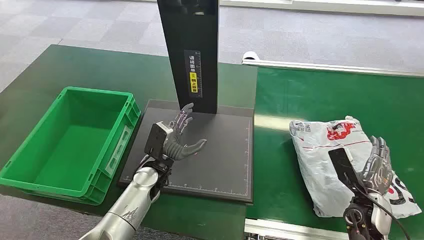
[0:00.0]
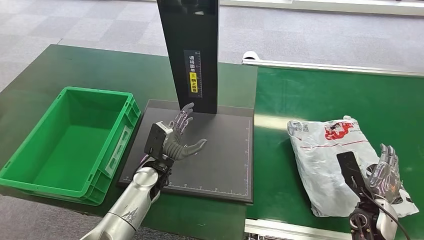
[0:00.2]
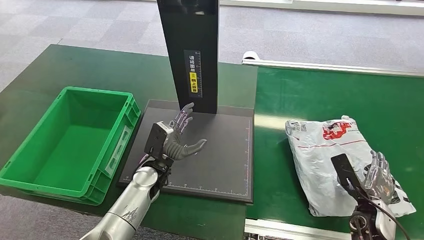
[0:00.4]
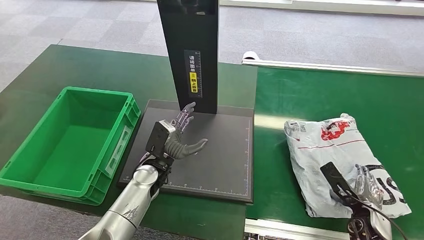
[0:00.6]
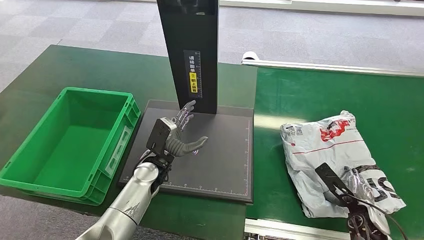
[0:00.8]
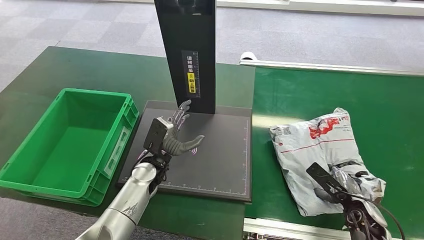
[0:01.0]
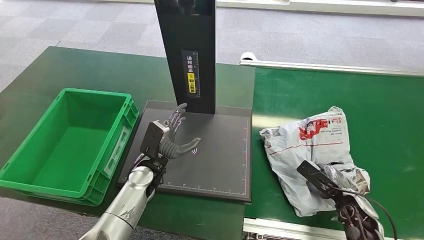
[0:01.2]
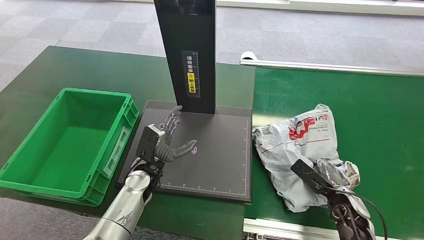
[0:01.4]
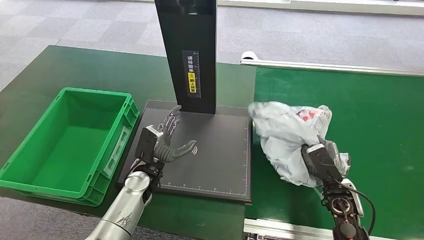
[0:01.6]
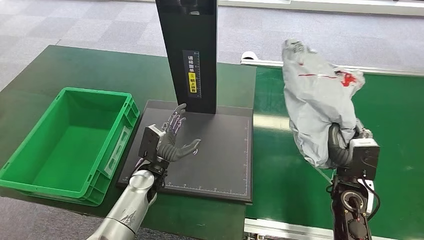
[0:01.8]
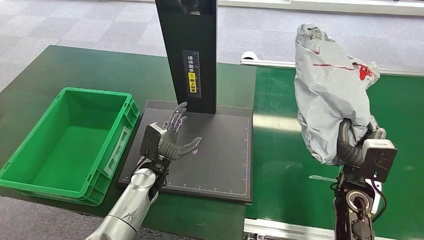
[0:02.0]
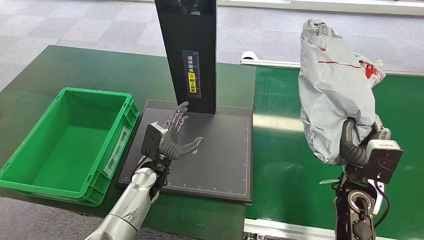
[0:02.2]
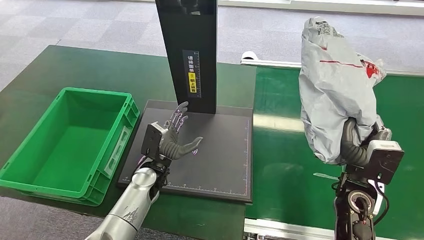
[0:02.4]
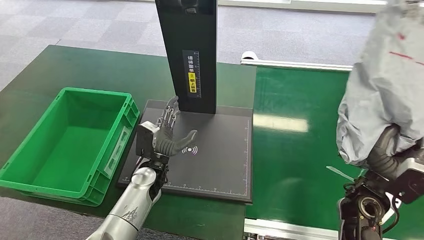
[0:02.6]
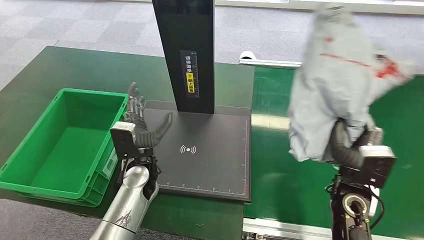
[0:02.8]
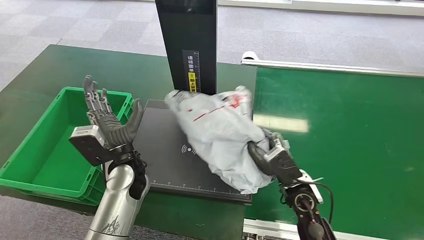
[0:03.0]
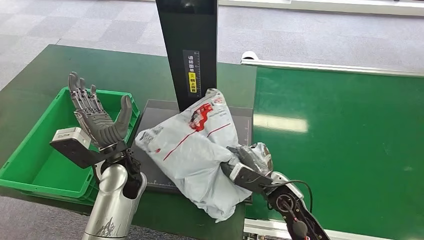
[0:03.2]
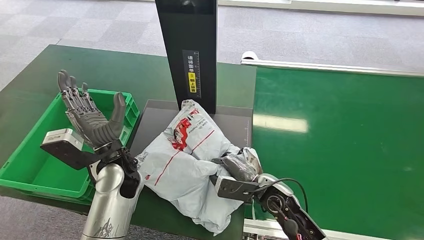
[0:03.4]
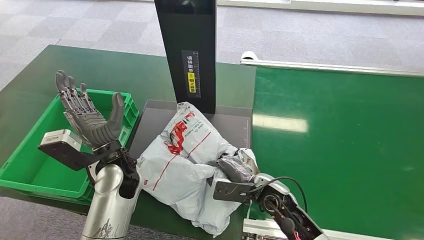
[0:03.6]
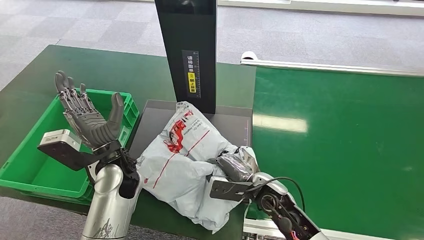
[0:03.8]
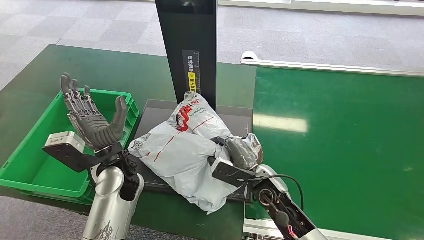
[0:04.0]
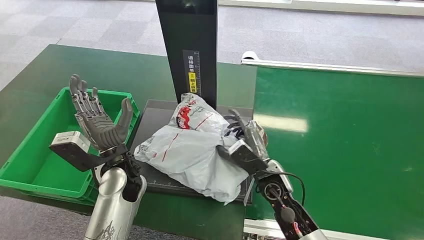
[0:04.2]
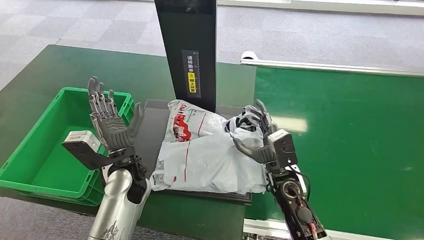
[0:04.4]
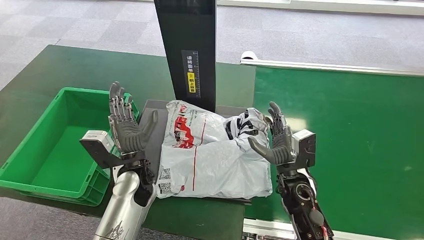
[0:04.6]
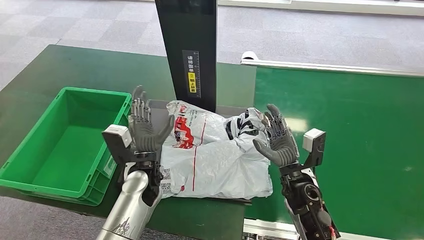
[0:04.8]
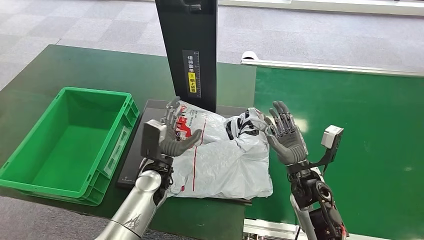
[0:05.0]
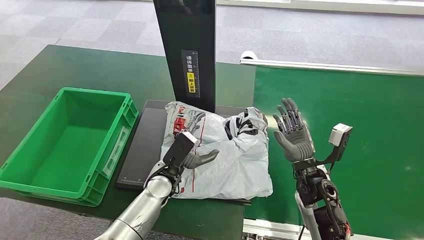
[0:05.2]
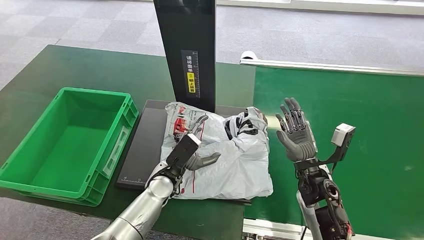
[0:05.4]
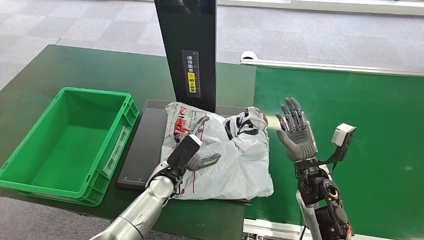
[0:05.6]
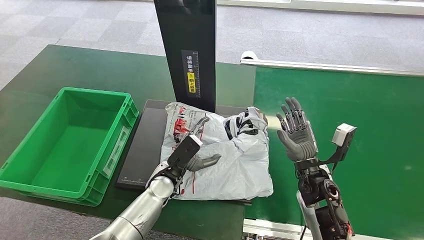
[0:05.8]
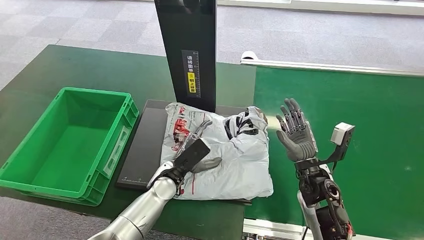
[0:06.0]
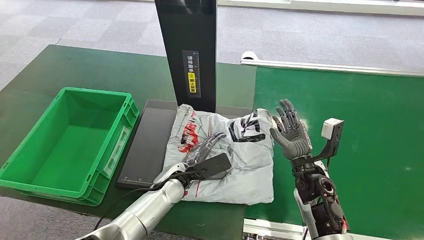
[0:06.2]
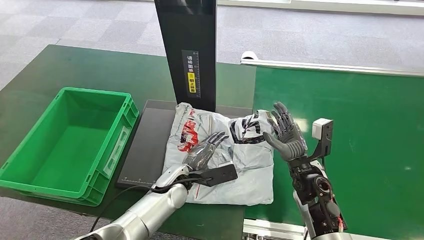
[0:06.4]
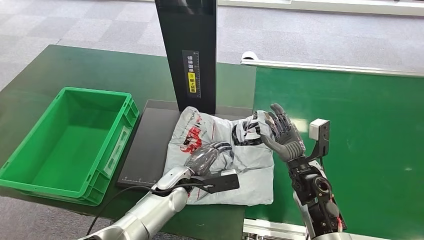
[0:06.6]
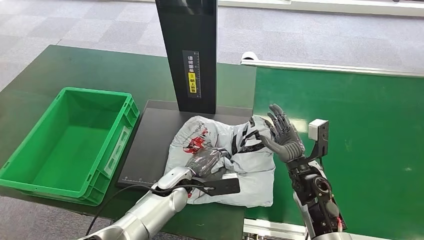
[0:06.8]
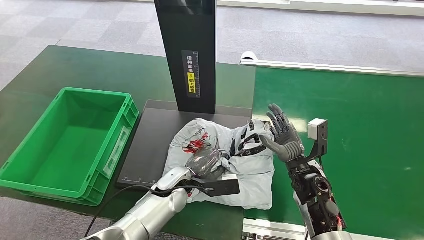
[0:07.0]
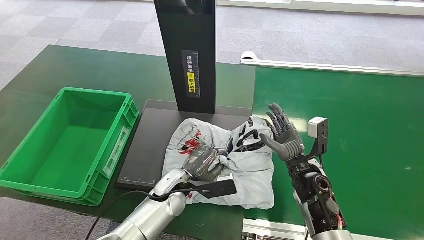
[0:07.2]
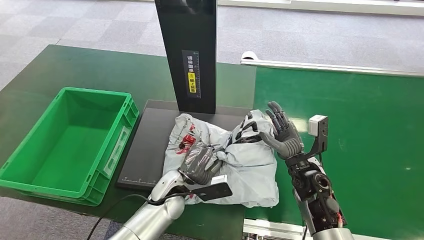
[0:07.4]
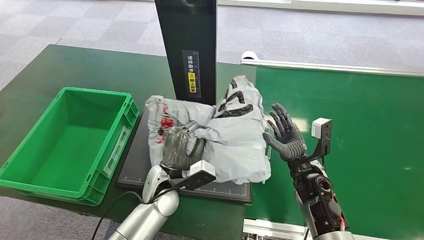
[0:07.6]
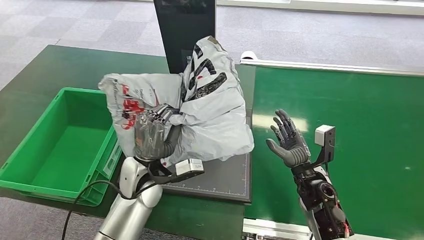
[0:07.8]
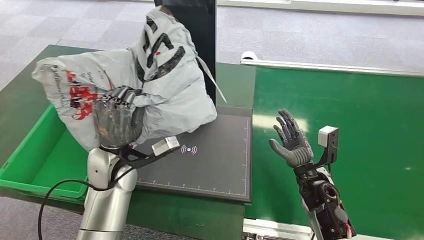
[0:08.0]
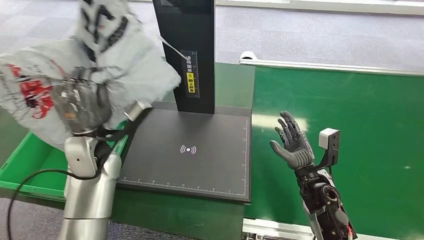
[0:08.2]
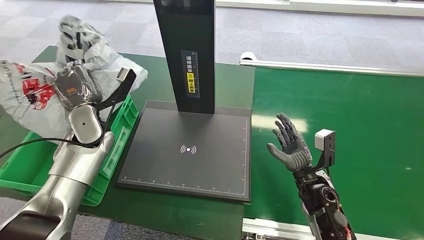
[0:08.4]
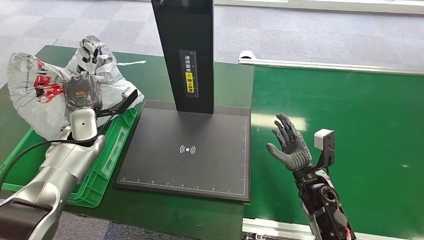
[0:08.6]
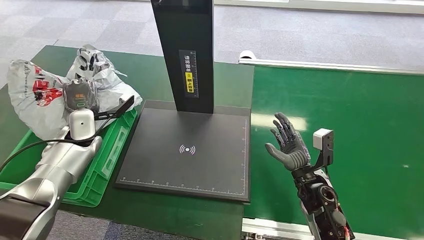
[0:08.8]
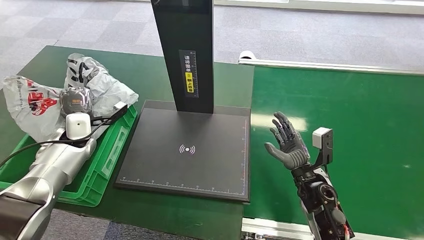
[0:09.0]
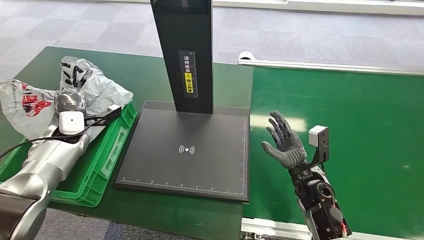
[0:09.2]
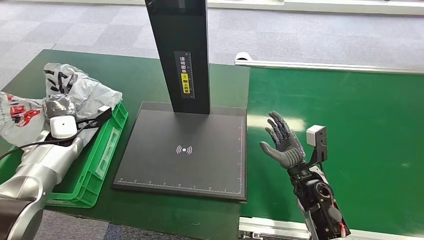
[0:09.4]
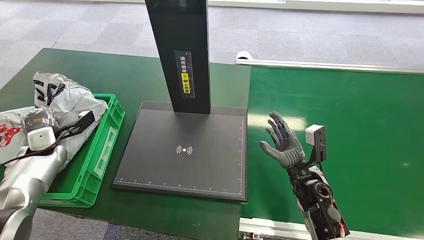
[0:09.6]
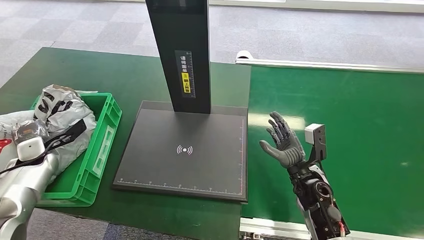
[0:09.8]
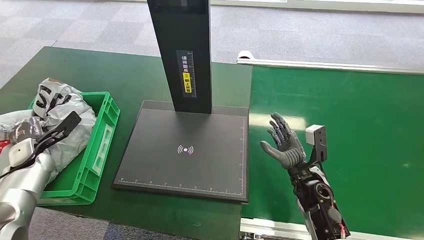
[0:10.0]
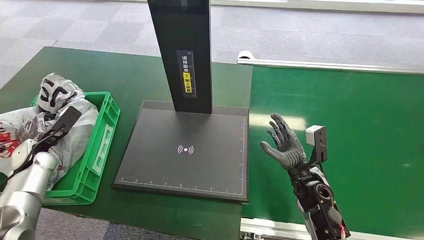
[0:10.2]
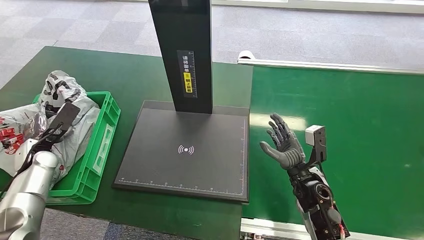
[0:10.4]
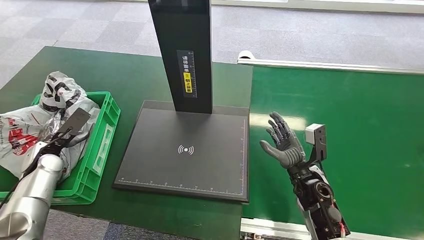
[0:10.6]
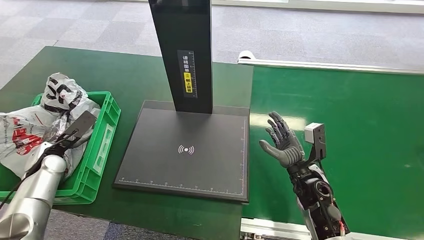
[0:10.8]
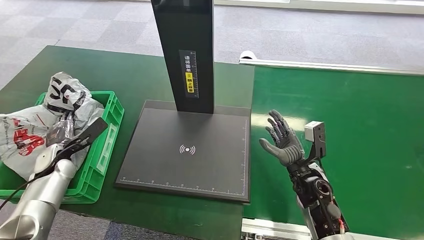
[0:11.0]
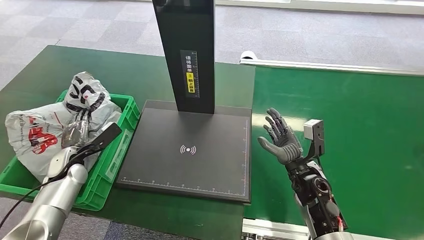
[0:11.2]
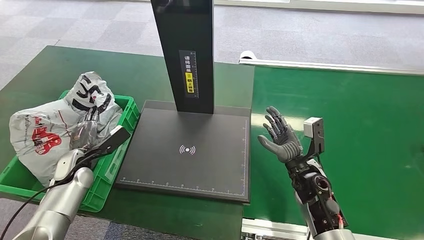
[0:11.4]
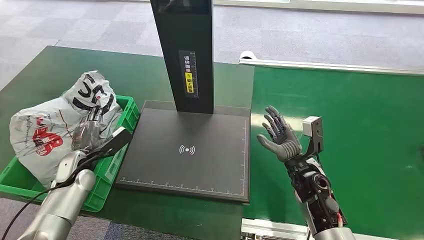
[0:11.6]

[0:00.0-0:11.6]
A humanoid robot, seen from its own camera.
Step, 0:00.0 to 0:01.6: Pick up the package from the conveyor belt.
Step, 0:01.8 to 0:05.0: Place the package onto the inbound machine.
Step, 0:05.2 to 0:08.2: Pick up the package from the inbound machine.
Step, 0:08.6 to 0:11.4: Place the package into the parcel locker.

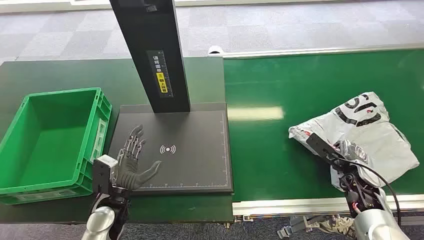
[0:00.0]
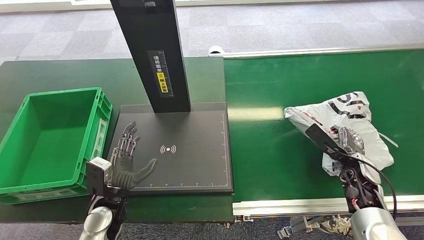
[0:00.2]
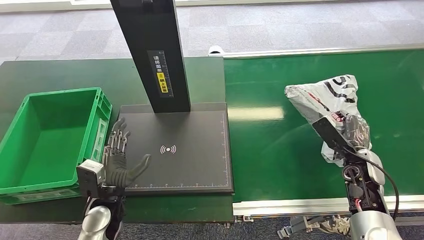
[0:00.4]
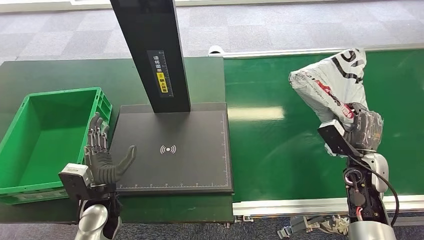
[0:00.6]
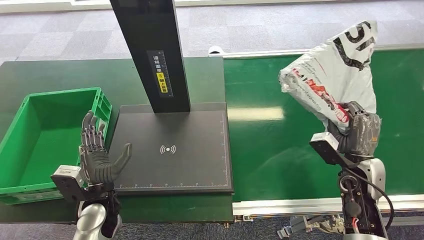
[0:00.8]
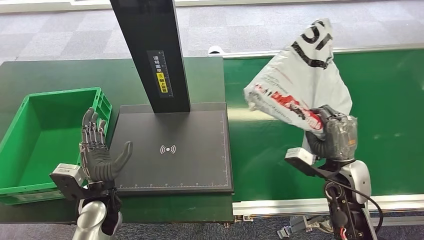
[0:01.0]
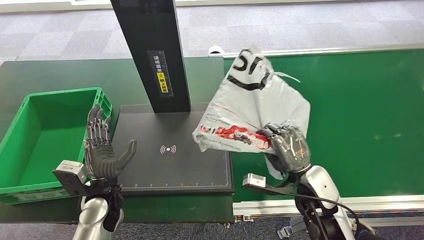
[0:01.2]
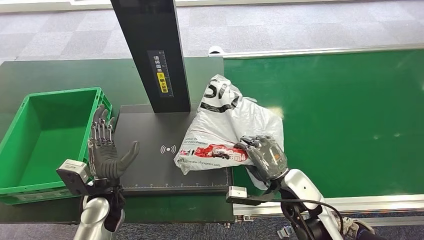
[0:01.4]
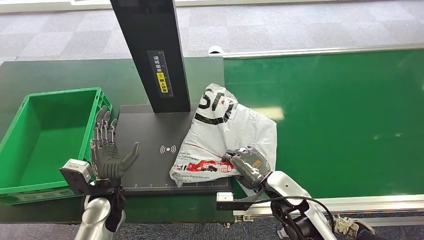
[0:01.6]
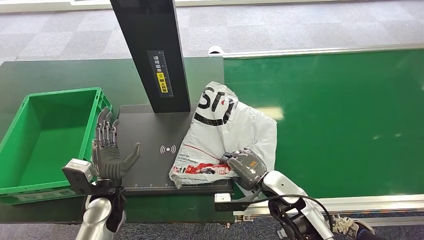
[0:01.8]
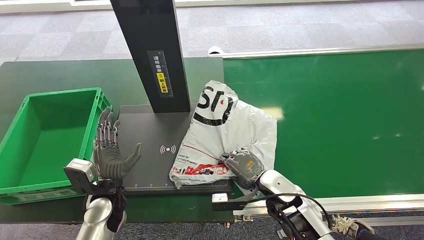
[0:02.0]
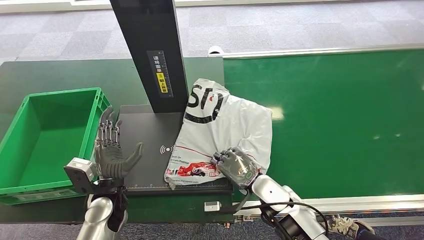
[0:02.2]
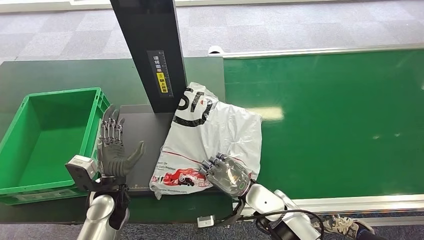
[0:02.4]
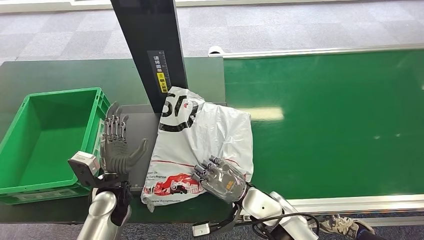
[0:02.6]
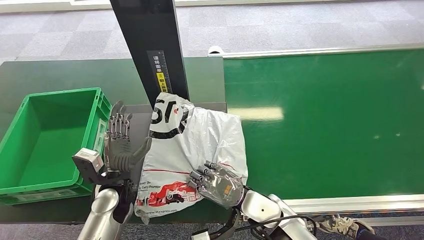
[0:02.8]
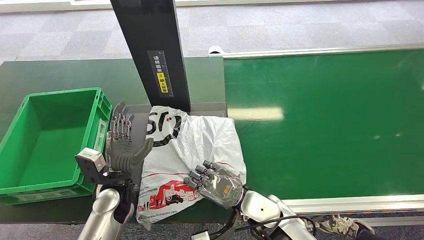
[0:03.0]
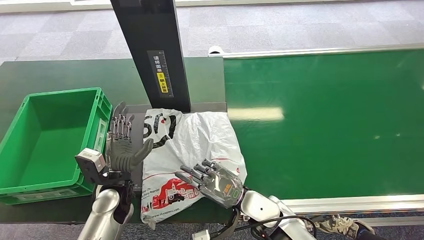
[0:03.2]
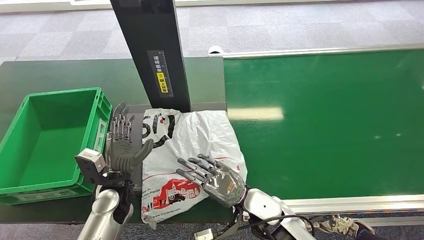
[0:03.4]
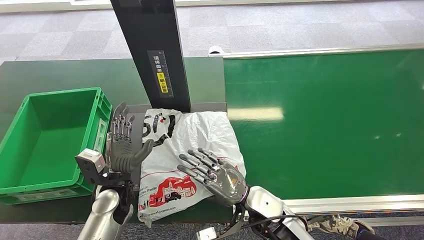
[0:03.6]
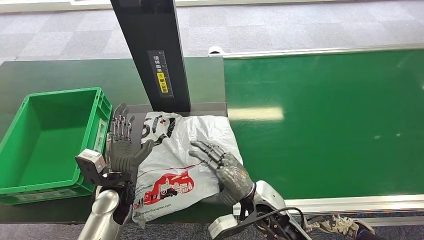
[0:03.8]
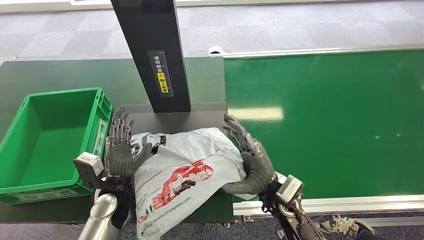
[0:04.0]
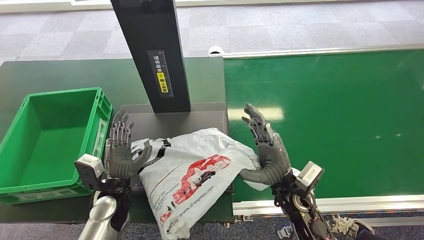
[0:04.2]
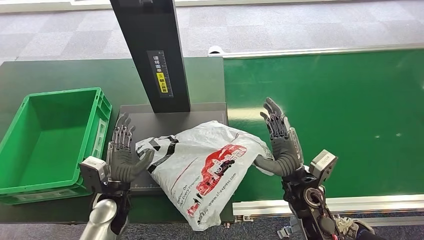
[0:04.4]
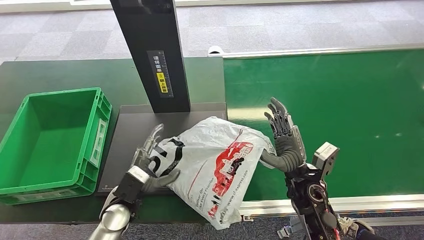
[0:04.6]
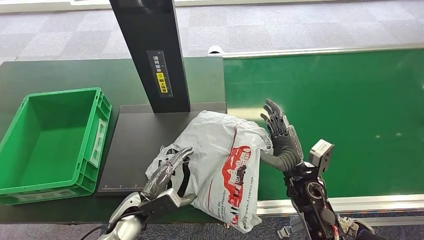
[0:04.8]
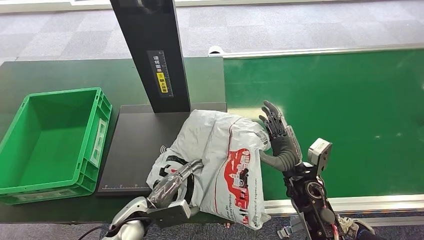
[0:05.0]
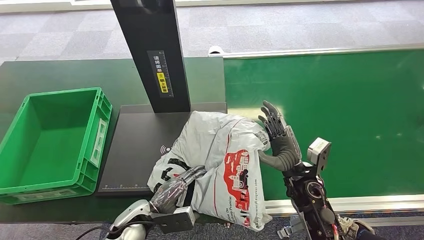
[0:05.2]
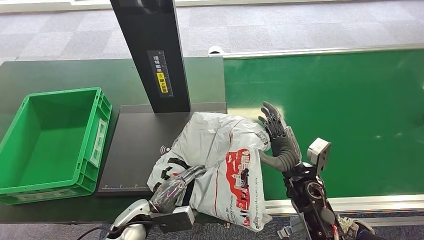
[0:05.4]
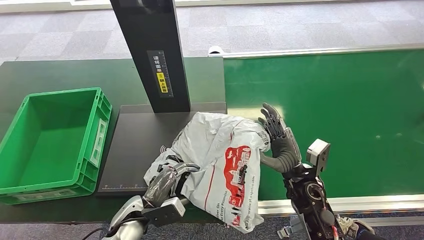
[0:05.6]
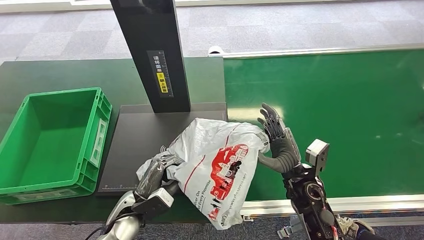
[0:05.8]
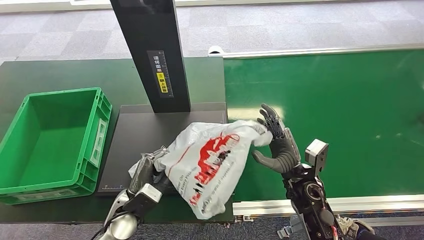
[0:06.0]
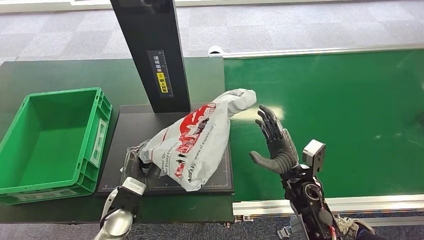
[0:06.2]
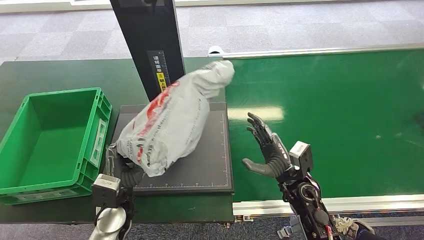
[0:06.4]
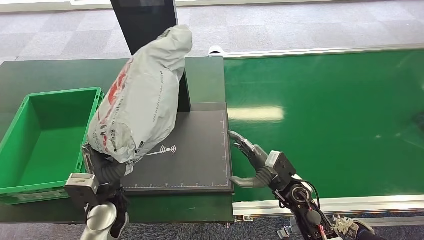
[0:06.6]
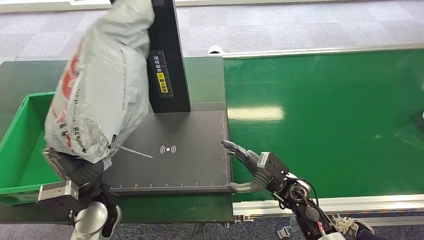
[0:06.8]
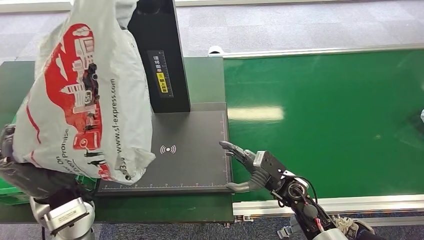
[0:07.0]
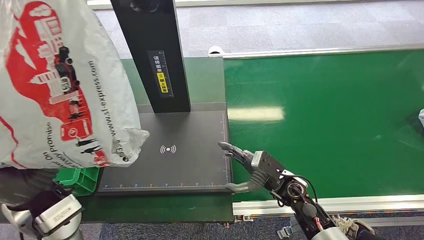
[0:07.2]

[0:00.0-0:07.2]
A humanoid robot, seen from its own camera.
Step, 0:00.0 to 0:01.0: Pick up the package from the conveyor belt.
Step, 0:01.2 to 0:03.6: Place the package onto the inbound machine.
Step, 0:03.8 to 0:07.2: Pick up the package from the inbound machine.
0:02.8 to 0:04.4: The right hand travels to the right by some 10 cm.
